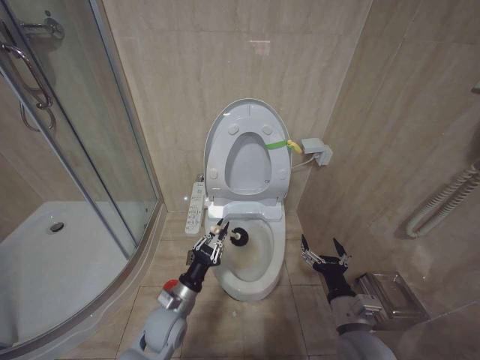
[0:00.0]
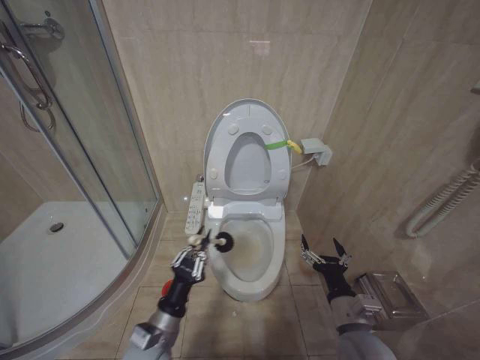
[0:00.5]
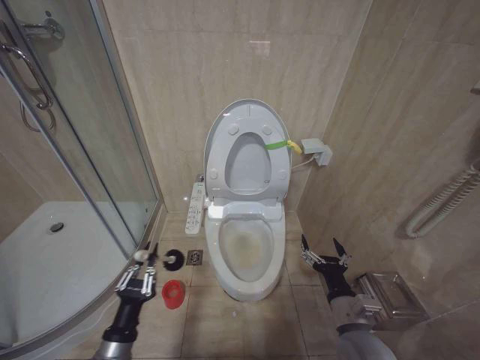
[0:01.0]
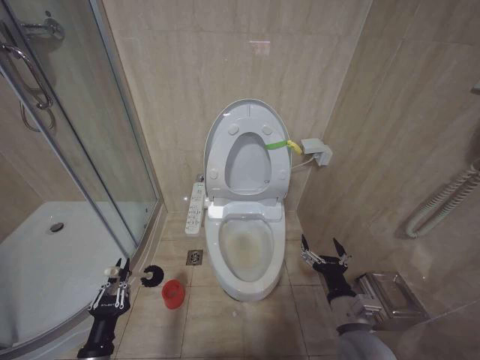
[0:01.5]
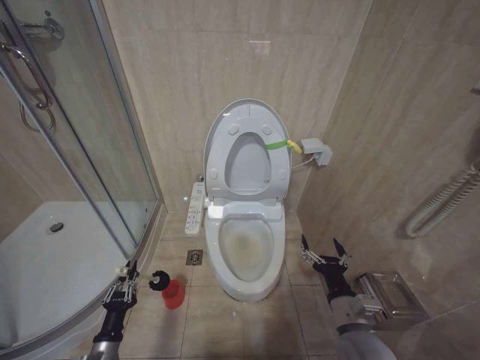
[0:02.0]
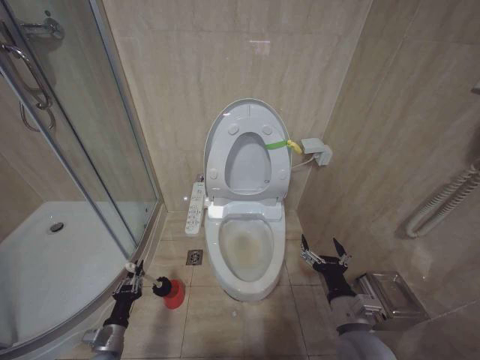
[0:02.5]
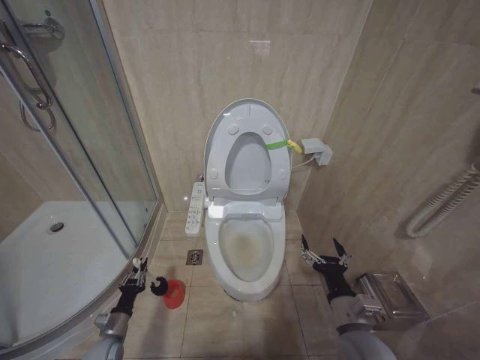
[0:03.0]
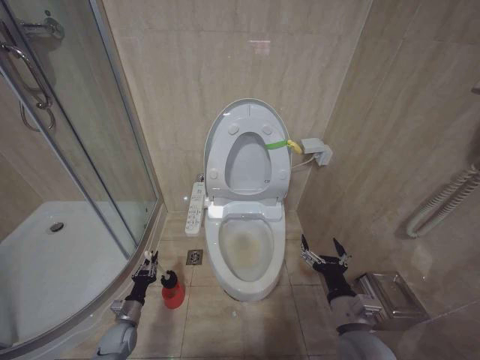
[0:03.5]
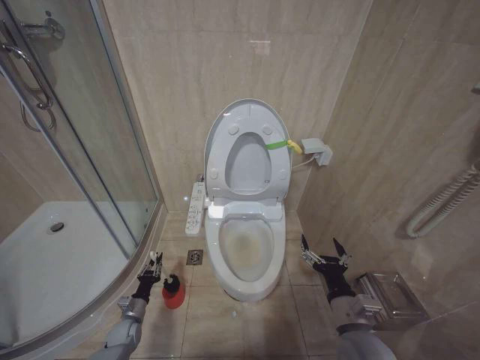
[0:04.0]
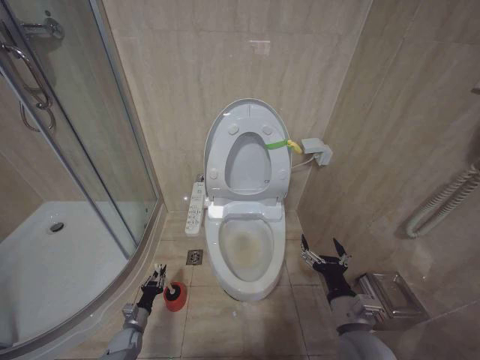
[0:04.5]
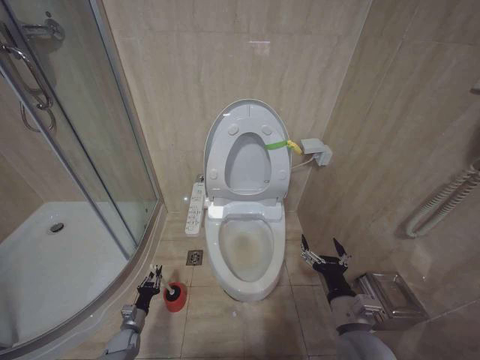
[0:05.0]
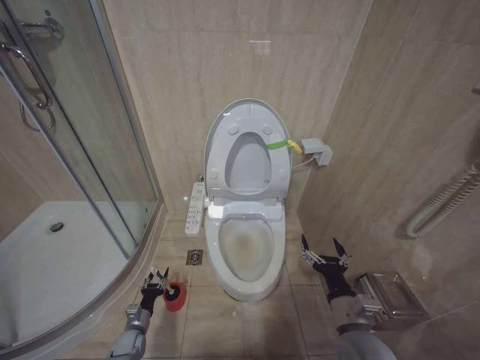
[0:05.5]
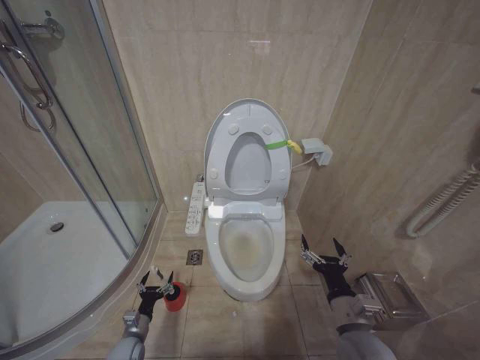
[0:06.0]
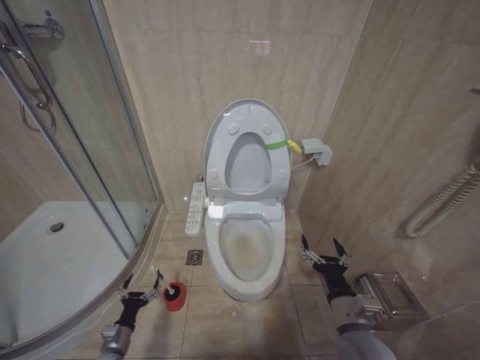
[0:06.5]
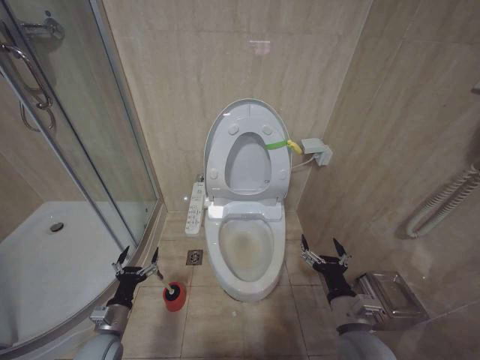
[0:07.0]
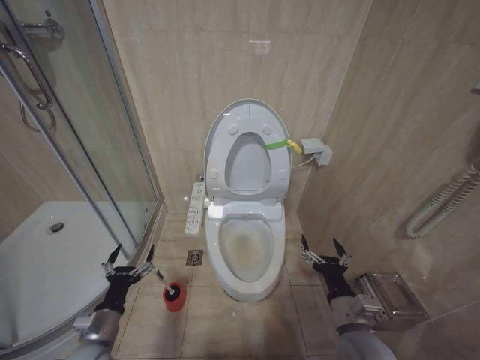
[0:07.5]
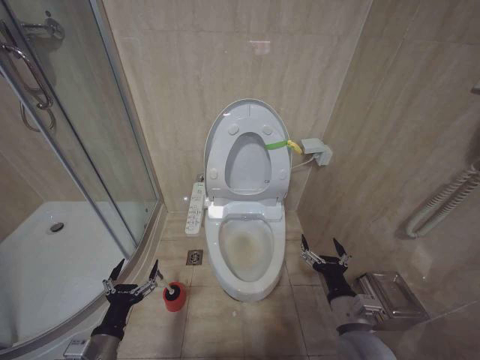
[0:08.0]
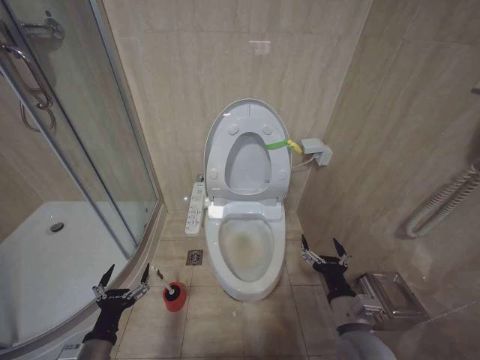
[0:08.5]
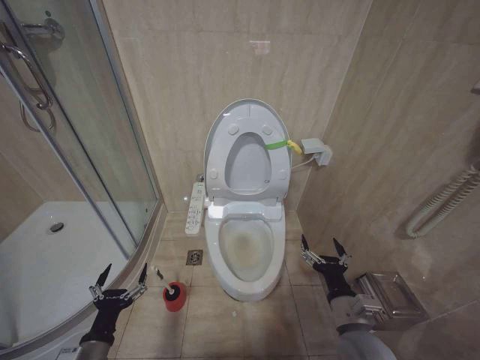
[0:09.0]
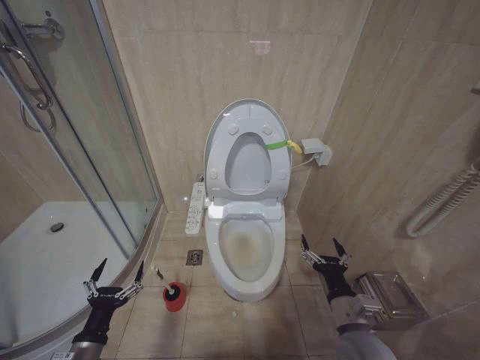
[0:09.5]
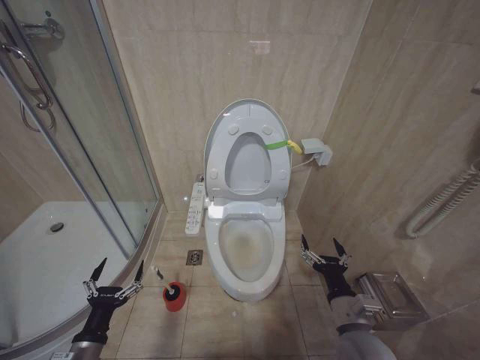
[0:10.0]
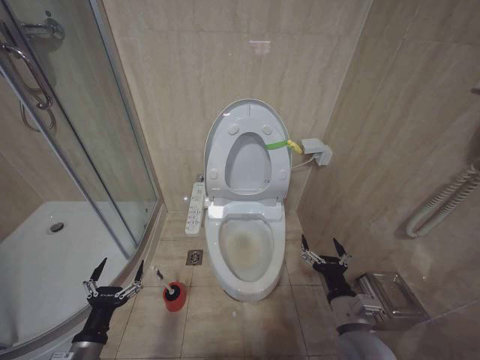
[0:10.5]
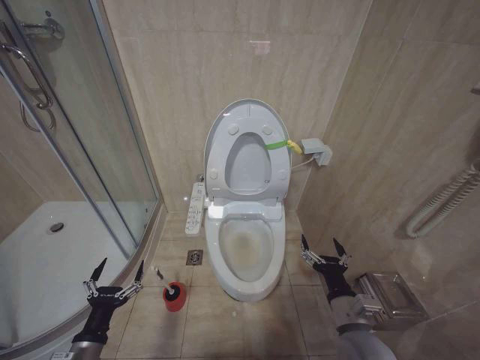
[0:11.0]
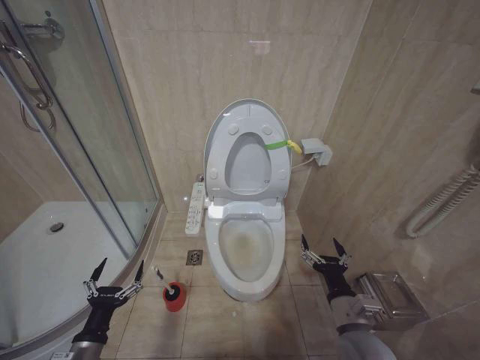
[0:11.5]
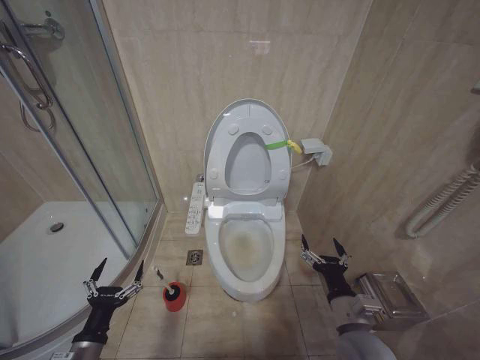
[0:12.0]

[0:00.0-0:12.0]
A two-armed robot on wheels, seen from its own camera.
Task of the whole recording: Open the toilet lid, clean the toilet bowl with a toilet brush, close the toilet lid, and flush.
0.0 to 2.0 s: The left gripper goes roughly 20 cm to the left, backward and downward.
2.0 to 4.0 s: The left gripper moves forward and downward, about 20 cm.
4.0 to 6.0 s: The left gripper changes place by about 5 cm, and opens its fingers.
6.0 to 8.0 s: The left gripper is displaced upward and backward by about 25 cm.
8.0 to 10.0 s: The grippers make only small movements.
10.0 to 12.0 s: Both grippers stay put.

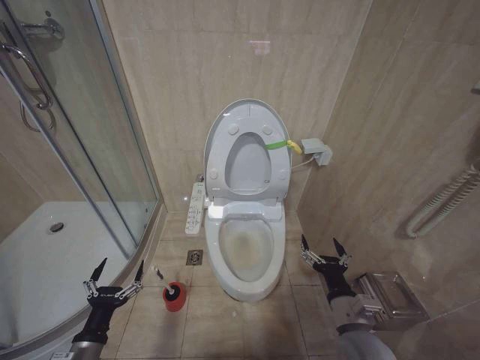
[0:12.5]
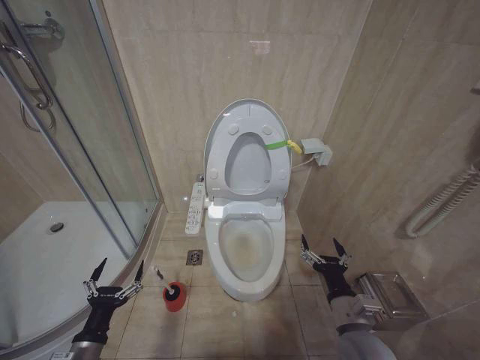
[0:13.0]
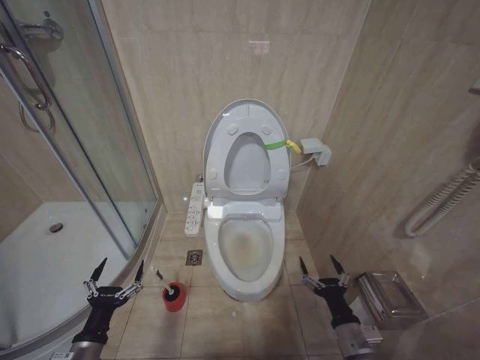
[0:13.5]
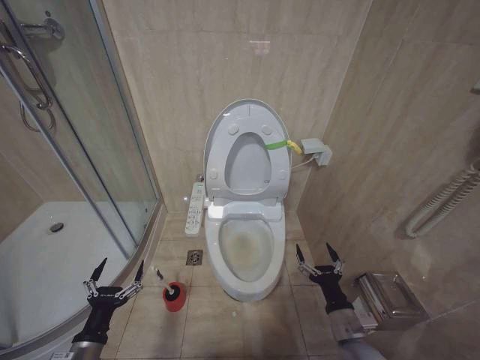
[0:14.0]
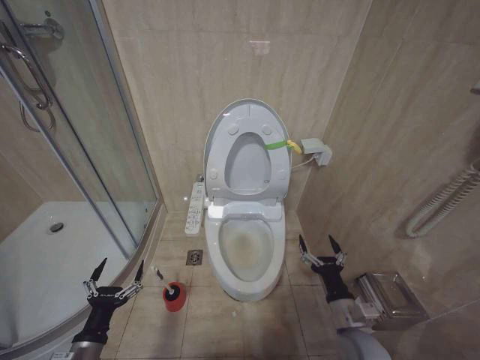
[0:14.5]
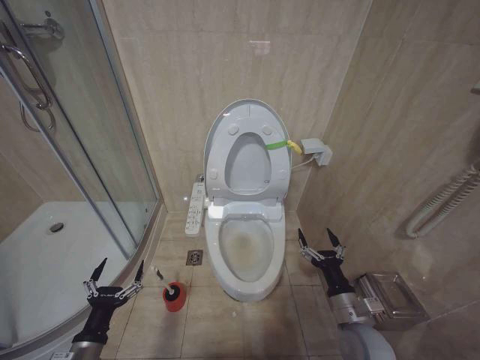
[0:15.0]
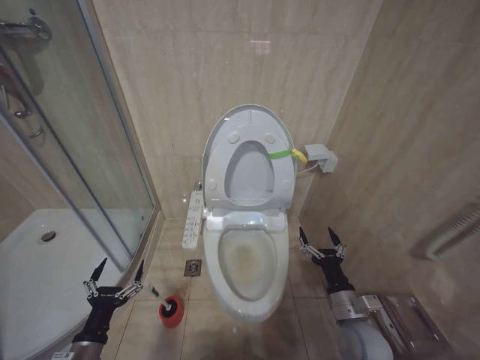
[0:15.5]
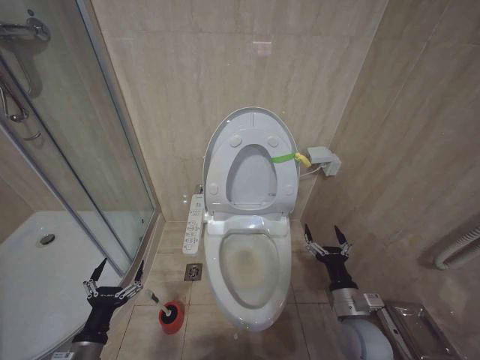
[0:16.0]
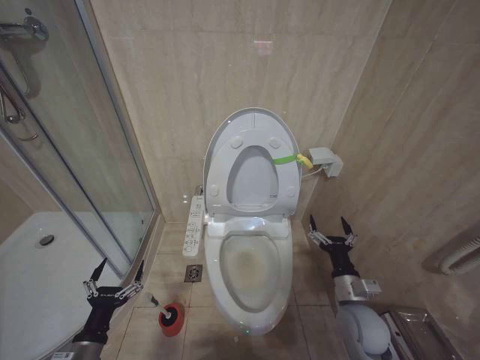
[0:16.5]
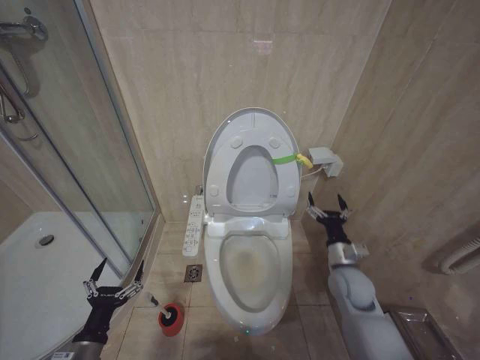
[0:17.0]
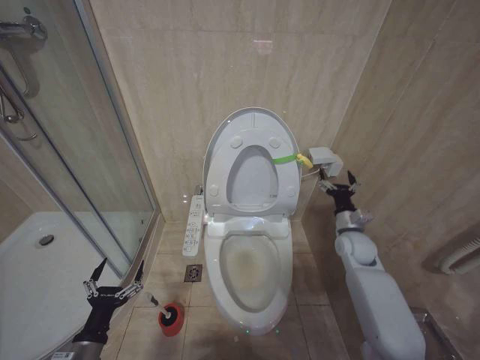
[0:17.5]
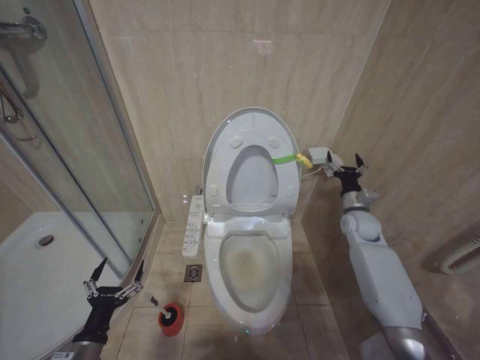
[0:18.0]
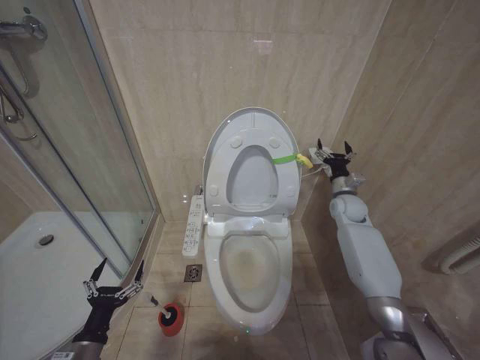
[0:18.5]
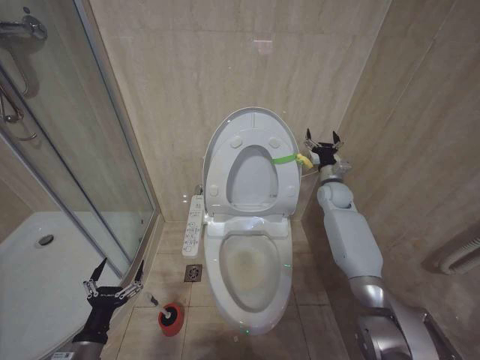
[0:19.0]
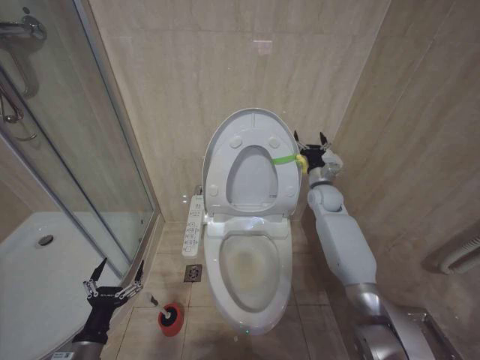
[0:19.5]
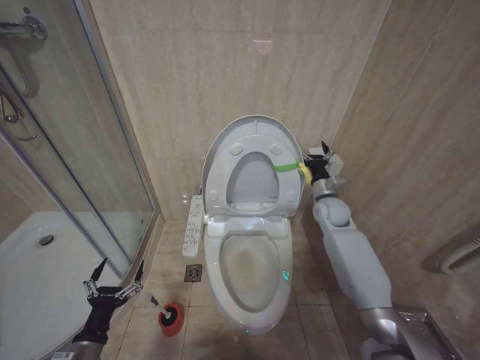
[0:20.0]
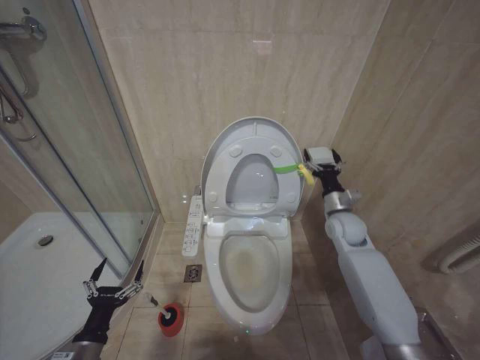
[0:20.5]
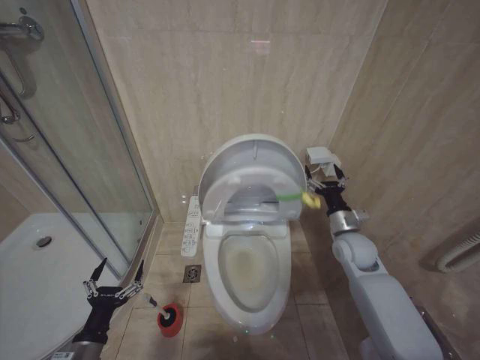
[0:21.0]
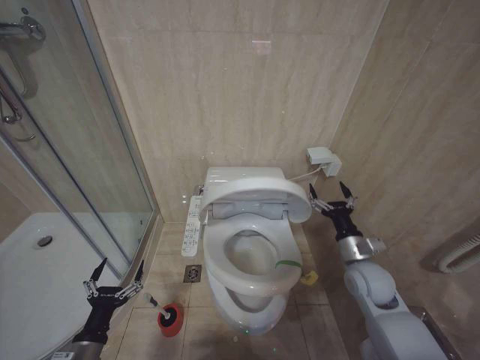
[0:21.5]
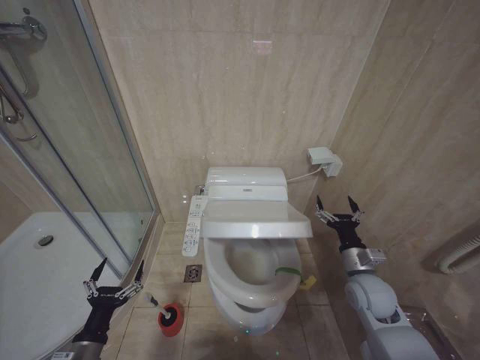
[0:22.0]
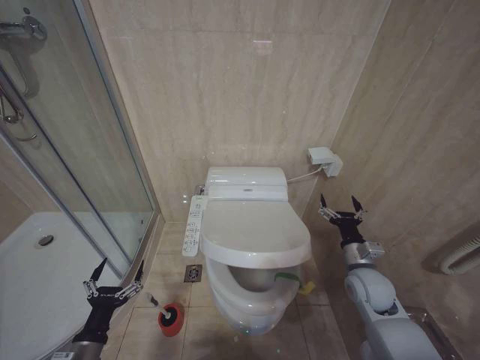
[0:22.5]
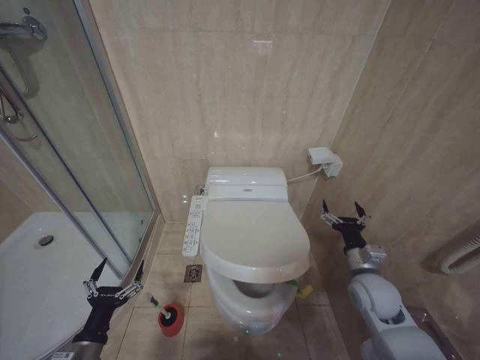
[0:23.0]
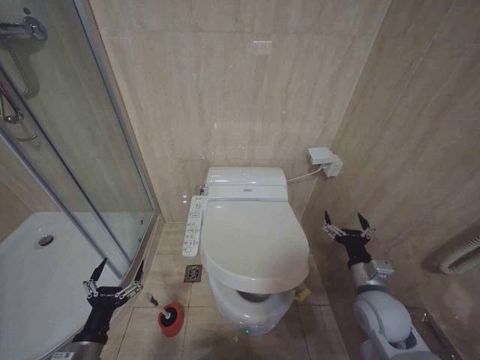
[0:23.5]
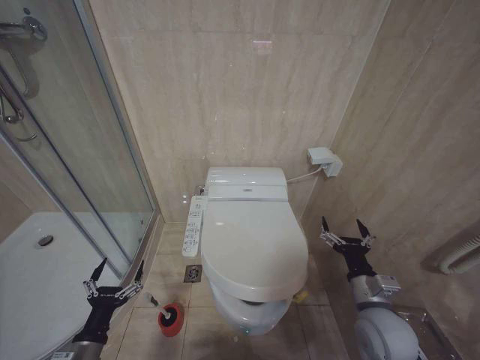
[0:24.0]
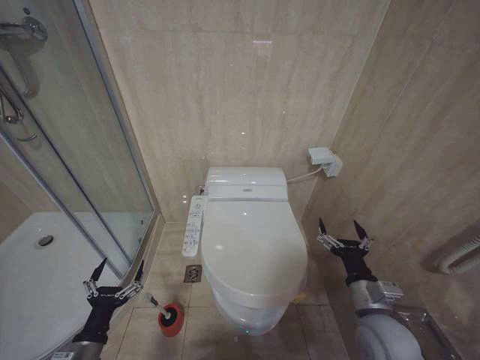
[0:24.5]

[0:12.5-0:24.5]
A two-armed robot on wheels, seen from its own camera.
Task of the whole recording: Open the toilet lid, clean the toilet bowl with a toilet brush, close the toilet lid, and flush.
14.5 to 16.5 s: The right gripper shifts by roughly 5 cm.
16.5 to 18.5 s: The right gripper travels forward and upward by some 30 cm.
18.5 to 20.5 s: The right gripper is displaced backward and to the left by about 10 cm.
20.5 to 22.5 s: The right gripper travels backward and downward by some 15 cm.
22.5 to 24.5 s: The right gripper heads backward, covering about 10 cm.

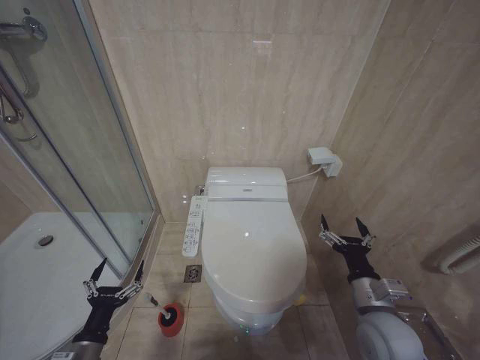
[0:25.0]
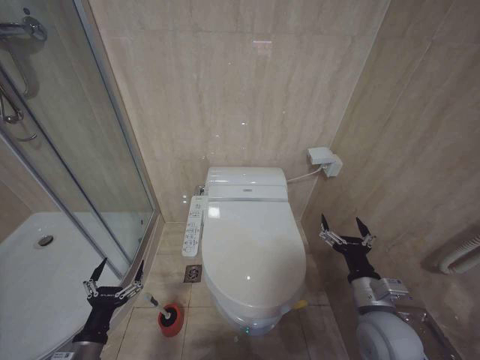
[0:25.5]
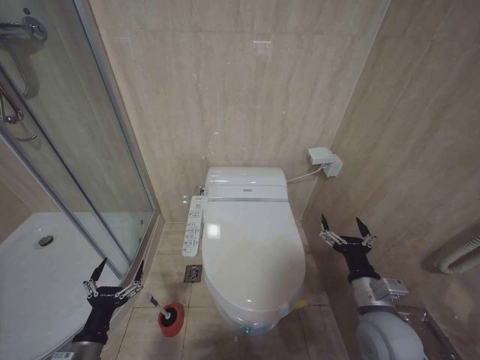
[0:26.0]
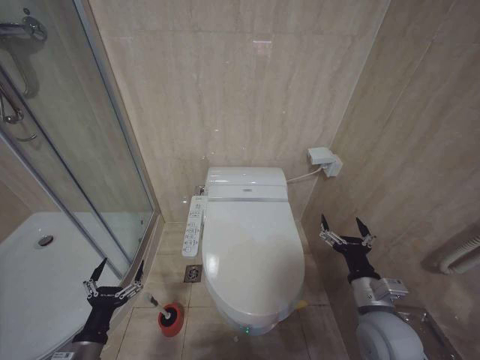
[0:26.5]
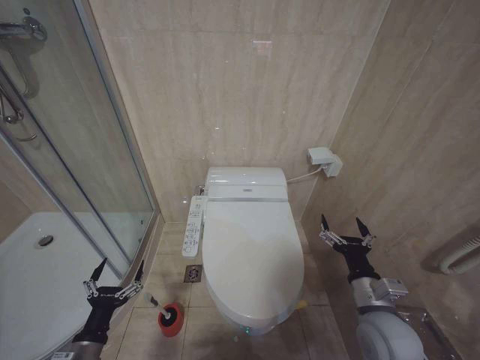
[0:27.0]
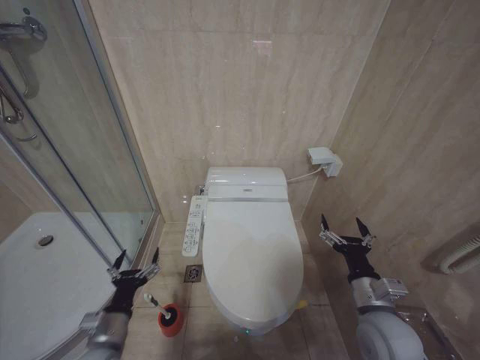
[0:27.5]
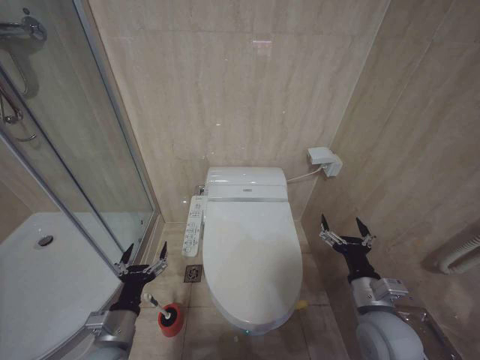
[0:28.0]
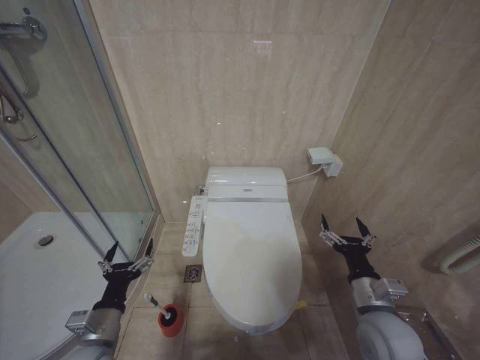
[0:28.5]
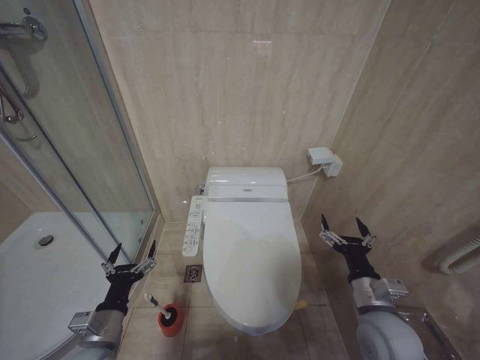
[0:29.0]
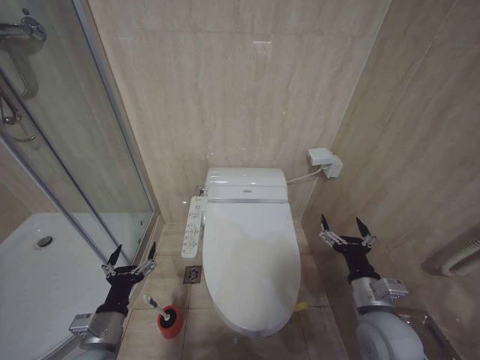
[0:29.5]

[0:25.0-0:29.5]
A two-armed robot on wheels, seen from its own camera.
Task of the whole recording: Open the toilet lid, clean the toilet bowl with a toilet brush, close the toilet lid, and flush.
25.0 to 27.0 s: Neither gripper changes place.
27.0 to 29.5 s: The left gripper moves approximately 5 cm.
